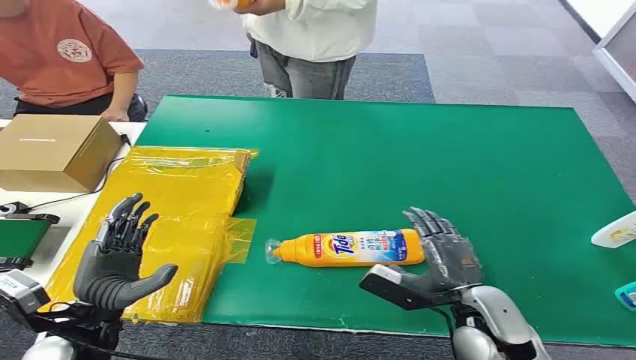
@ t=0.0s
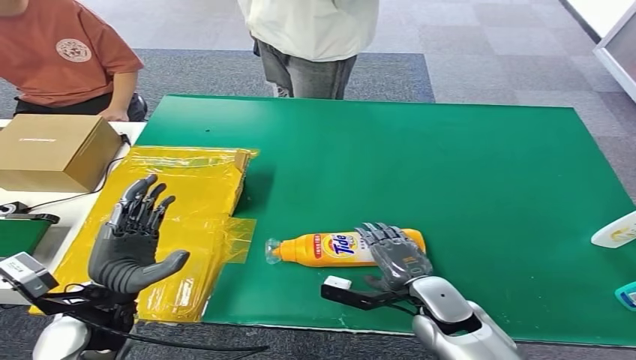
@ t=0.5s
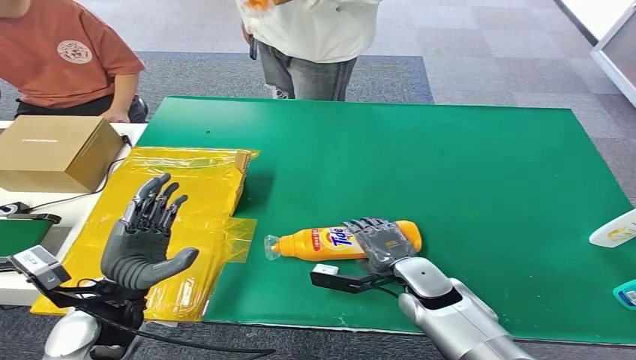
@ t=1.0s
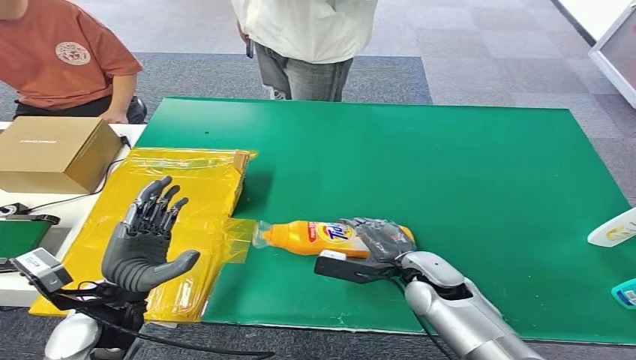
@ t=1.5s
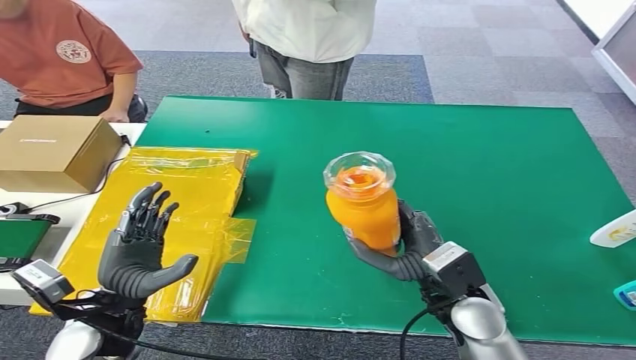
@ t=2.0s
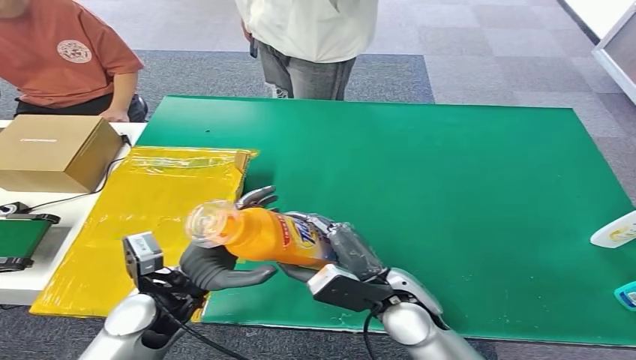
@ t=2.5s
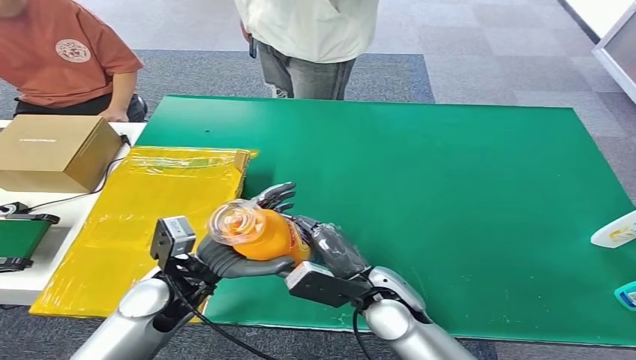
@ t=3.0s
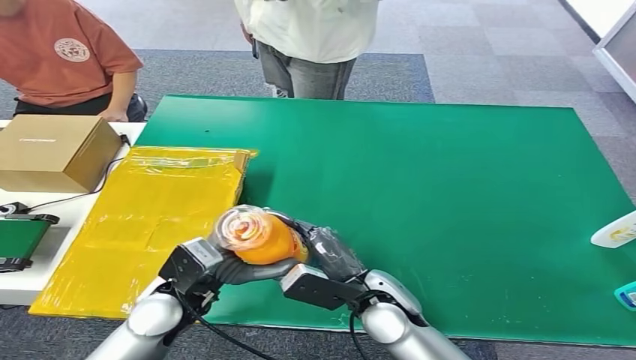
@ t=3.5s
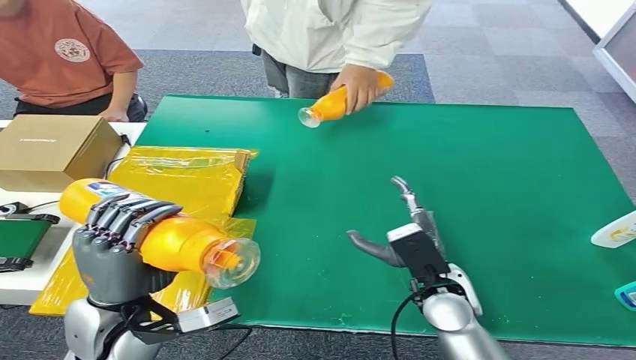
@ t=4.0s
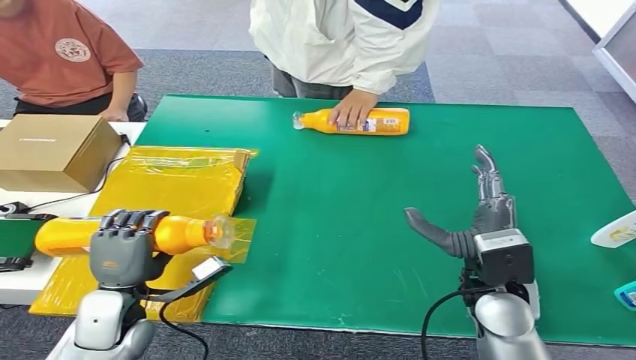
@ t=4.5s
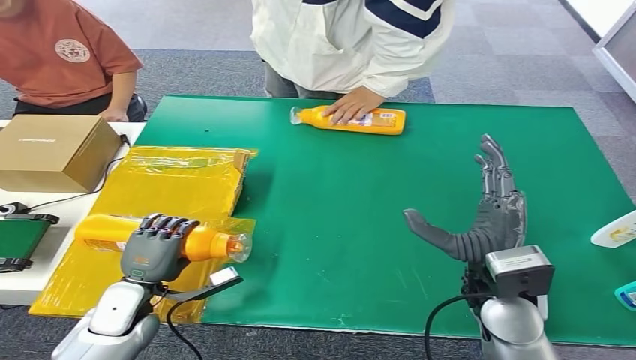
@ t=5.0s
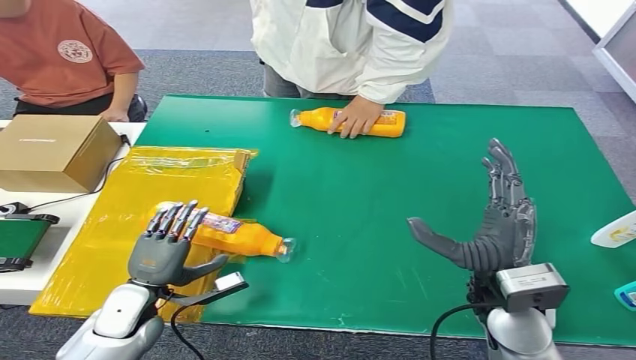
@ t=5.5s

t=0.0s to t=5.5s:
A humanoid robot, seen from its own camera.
Step, t=0.0s to t=1.5s: Pick up the bottle from the table.
Step, t=2.0s to t=5.5s: Turn the bottle to the front side.

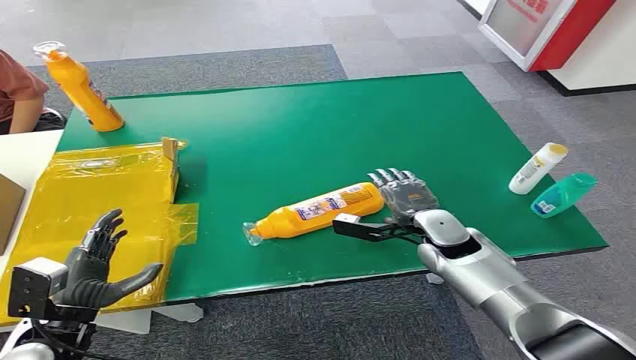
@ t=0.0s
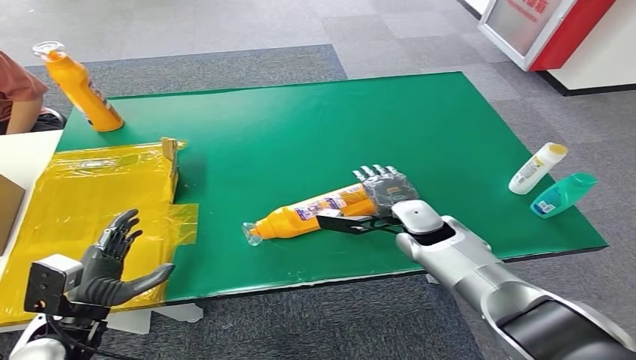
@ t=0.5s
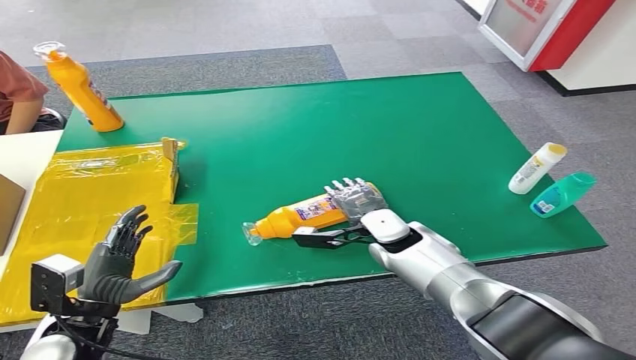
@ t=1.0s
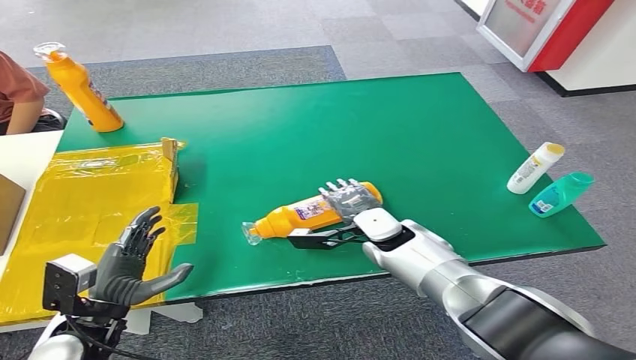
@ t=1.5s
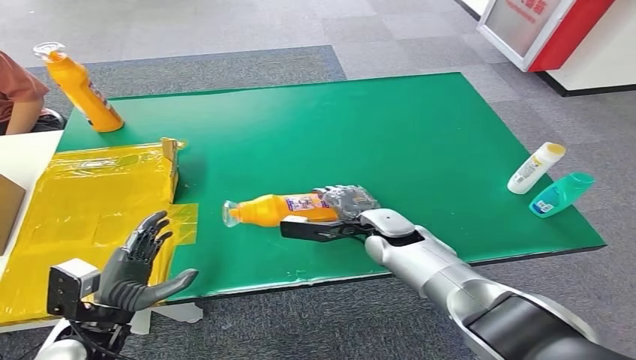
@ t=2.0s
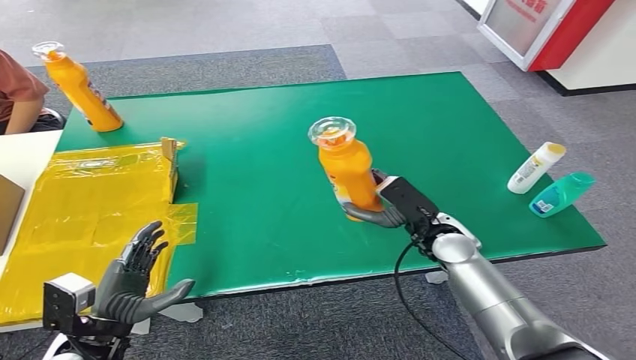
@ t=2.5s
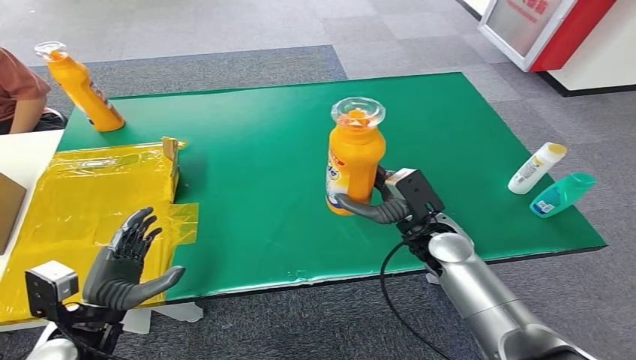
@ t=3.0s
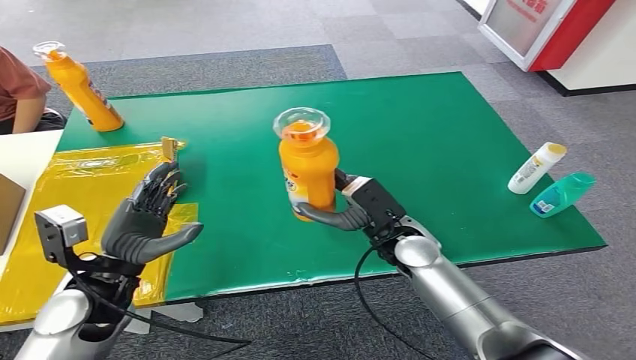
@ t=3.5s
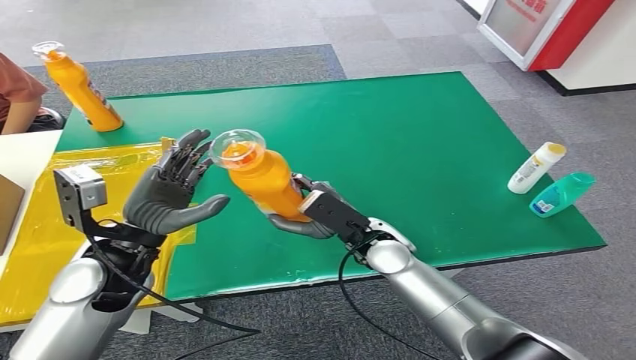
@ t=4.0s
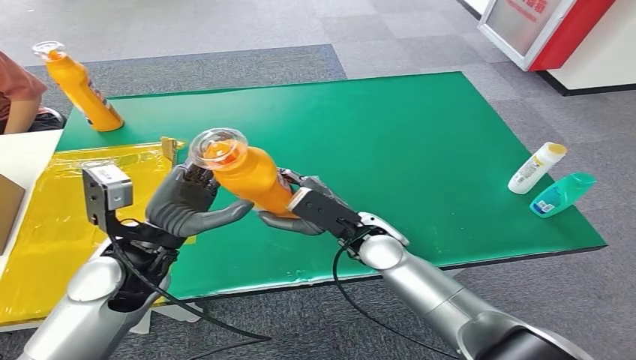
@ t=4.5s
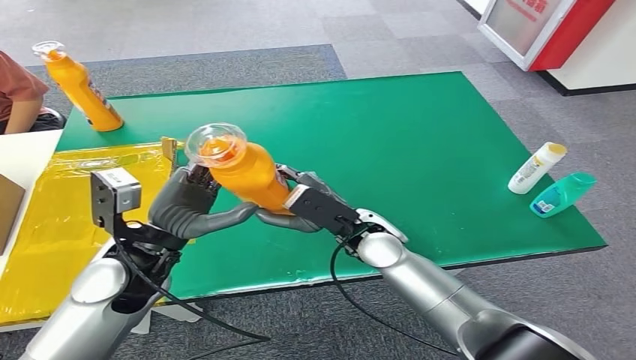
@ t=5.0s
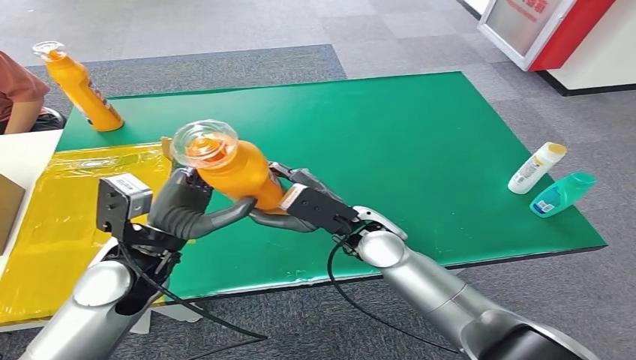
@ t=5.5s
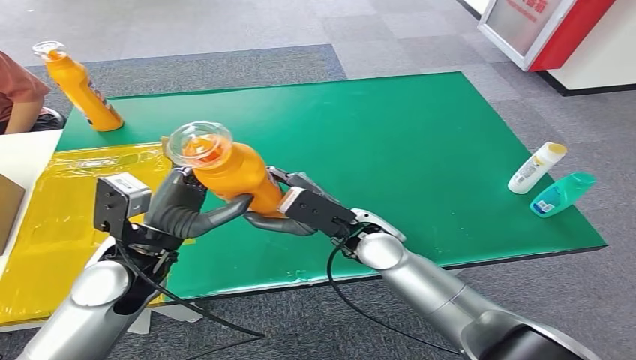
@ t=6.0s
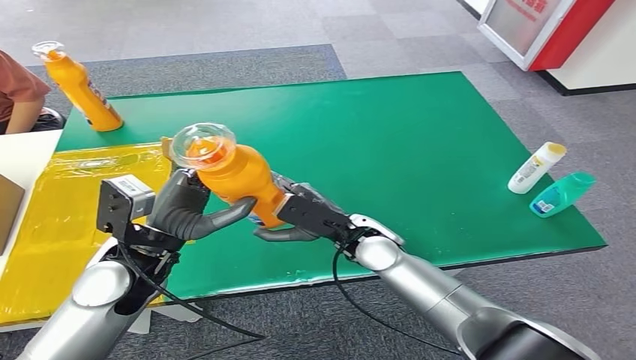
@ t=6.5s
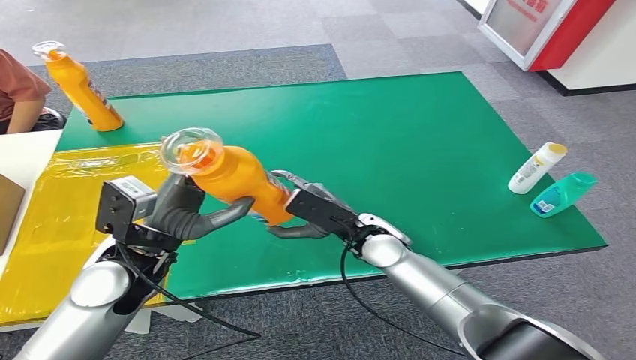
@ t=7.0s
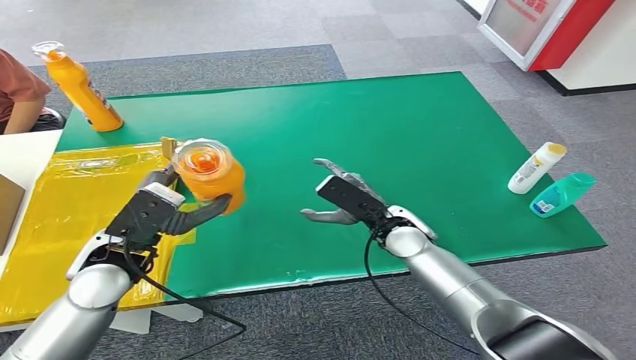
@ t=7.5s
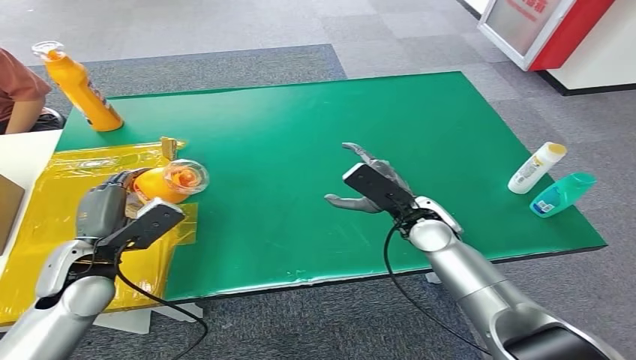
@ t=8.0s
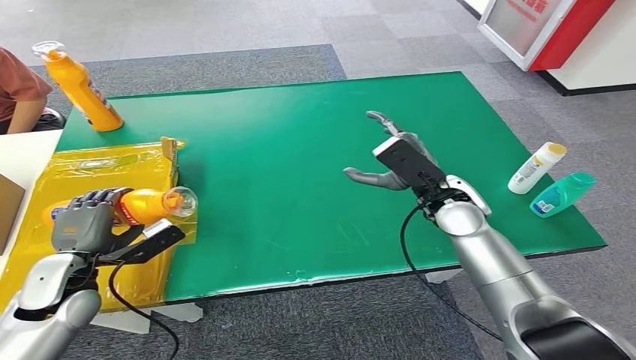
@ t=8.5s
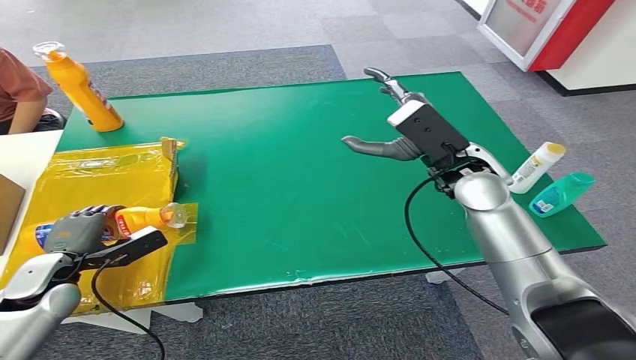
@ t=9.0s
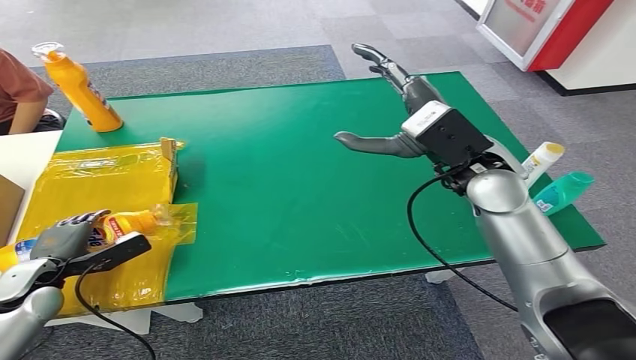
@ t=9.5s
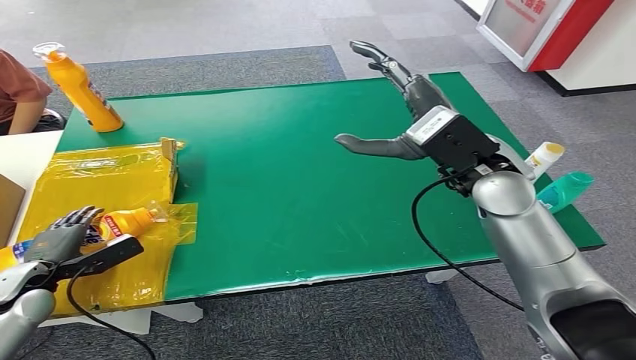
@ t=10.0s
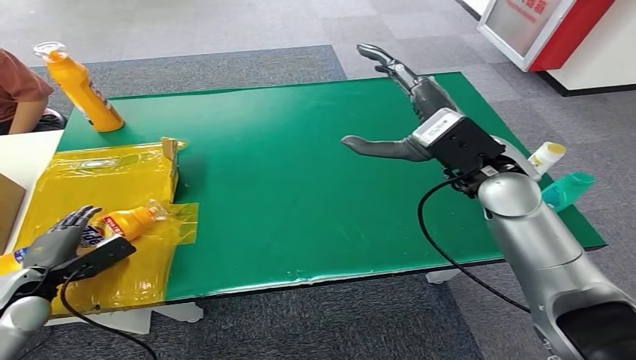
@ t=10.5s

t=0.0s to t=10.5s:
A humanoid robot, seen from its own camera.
Step, t=0.0s to t=3.0s: Pick up the bottle from the table.
Step, t=3.5s to t=10.5s: Turn the bottle to the front side.
t=4.0s to t=6.5s: The hands move only a little.
